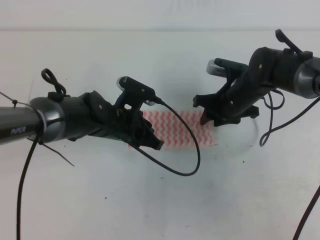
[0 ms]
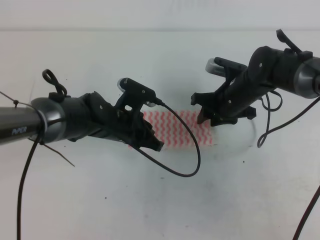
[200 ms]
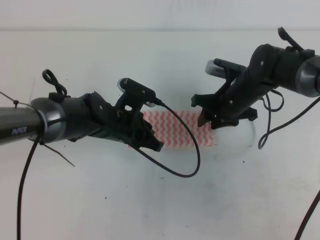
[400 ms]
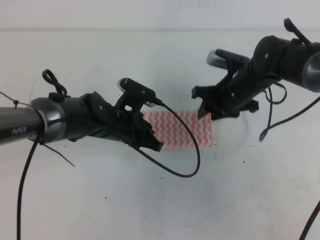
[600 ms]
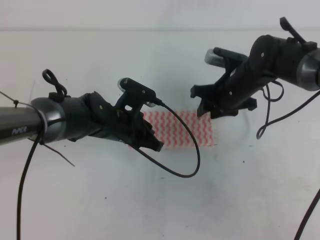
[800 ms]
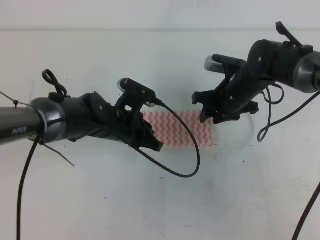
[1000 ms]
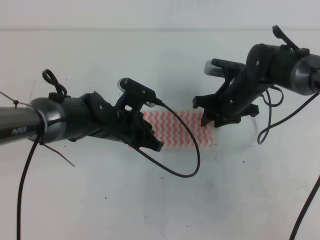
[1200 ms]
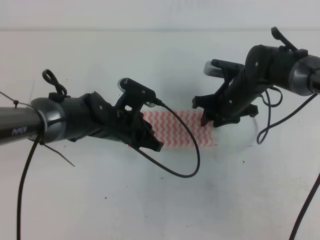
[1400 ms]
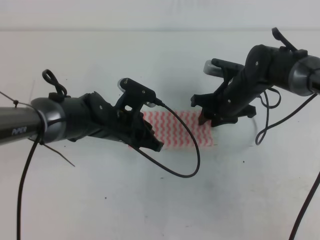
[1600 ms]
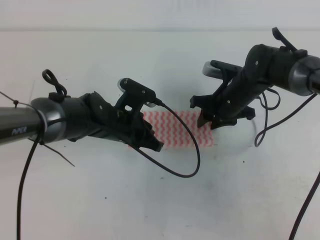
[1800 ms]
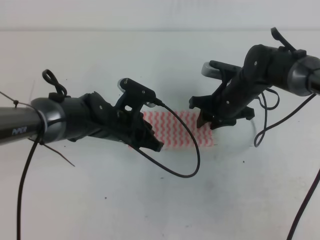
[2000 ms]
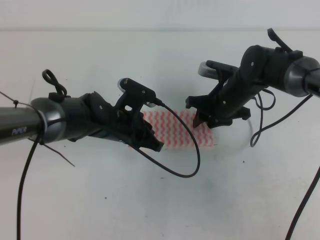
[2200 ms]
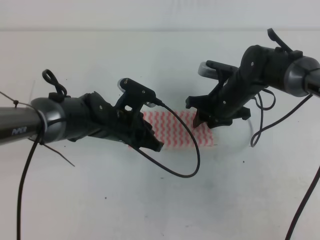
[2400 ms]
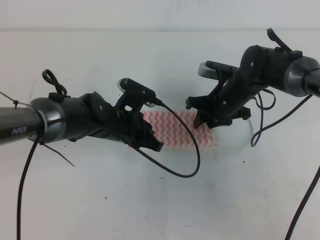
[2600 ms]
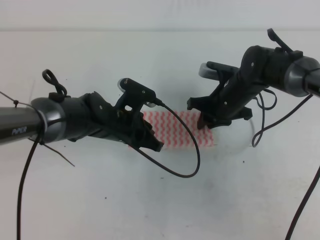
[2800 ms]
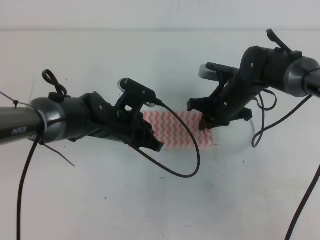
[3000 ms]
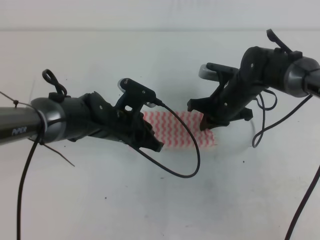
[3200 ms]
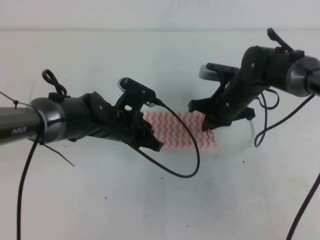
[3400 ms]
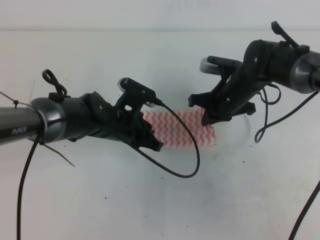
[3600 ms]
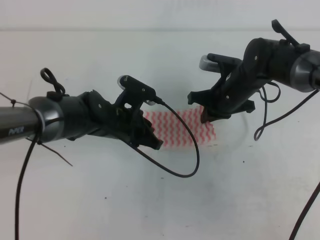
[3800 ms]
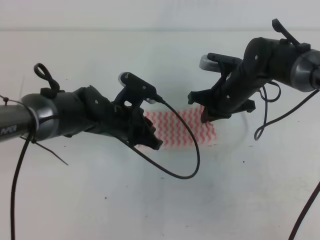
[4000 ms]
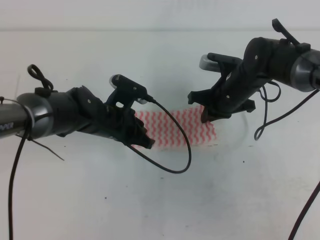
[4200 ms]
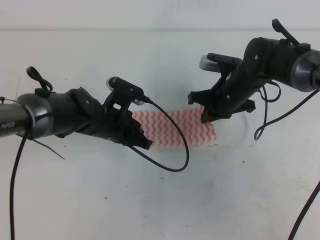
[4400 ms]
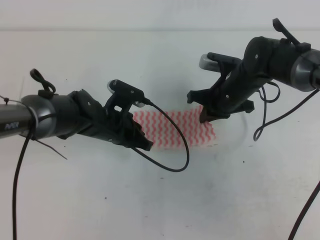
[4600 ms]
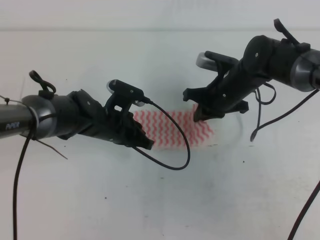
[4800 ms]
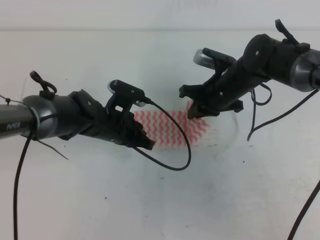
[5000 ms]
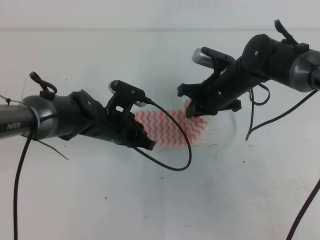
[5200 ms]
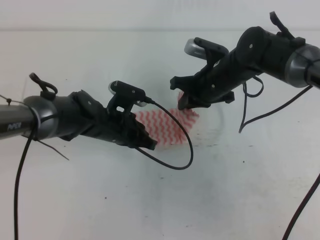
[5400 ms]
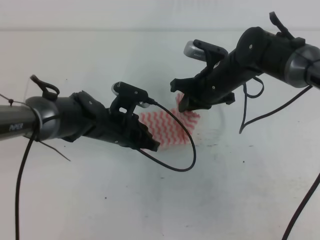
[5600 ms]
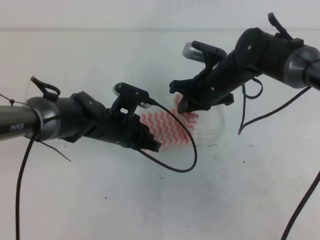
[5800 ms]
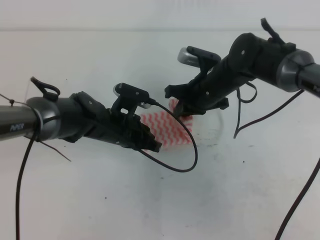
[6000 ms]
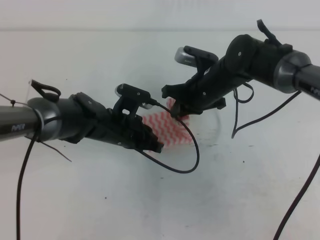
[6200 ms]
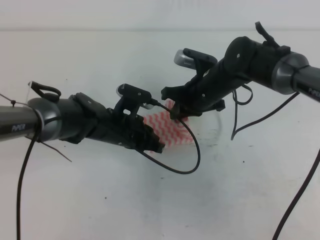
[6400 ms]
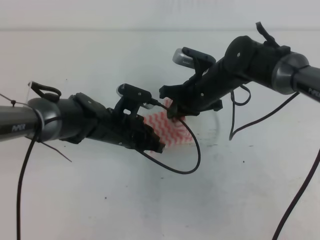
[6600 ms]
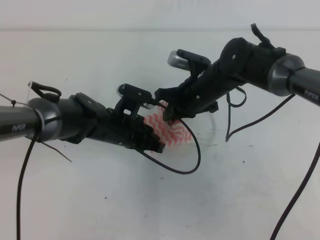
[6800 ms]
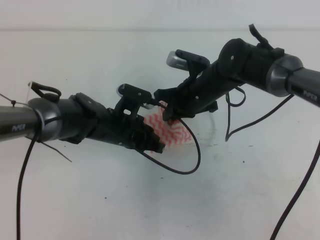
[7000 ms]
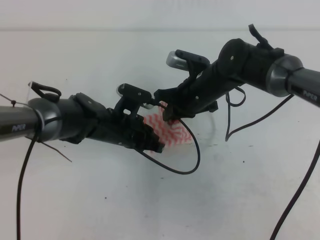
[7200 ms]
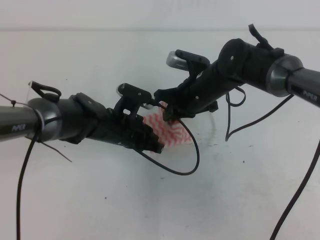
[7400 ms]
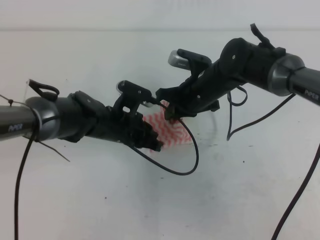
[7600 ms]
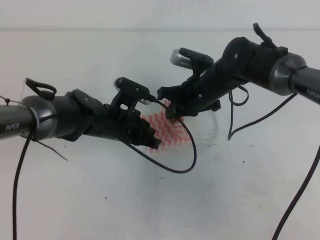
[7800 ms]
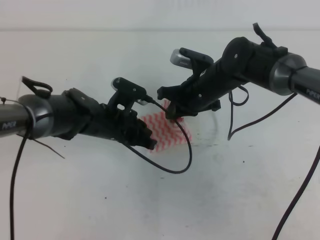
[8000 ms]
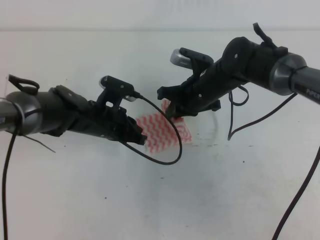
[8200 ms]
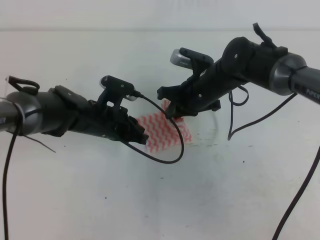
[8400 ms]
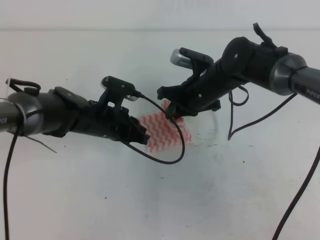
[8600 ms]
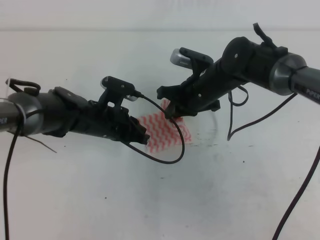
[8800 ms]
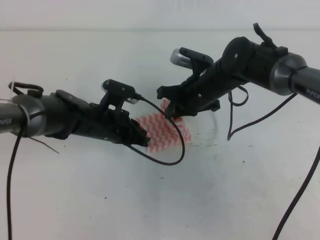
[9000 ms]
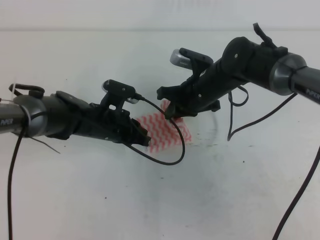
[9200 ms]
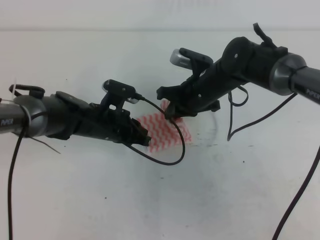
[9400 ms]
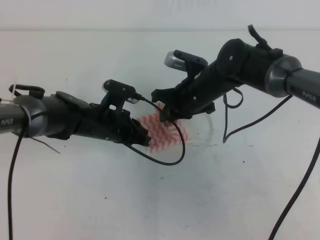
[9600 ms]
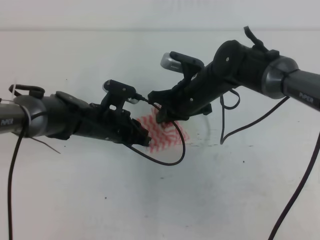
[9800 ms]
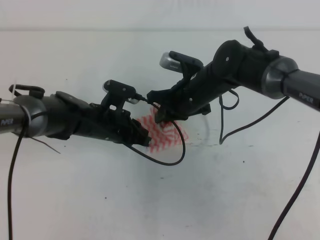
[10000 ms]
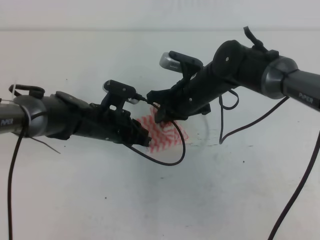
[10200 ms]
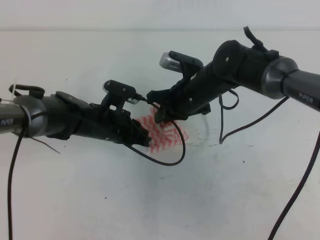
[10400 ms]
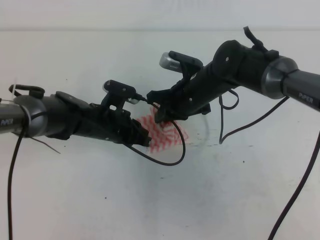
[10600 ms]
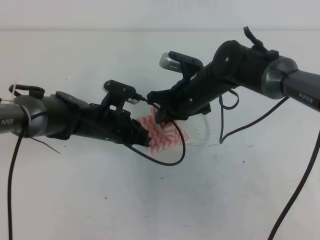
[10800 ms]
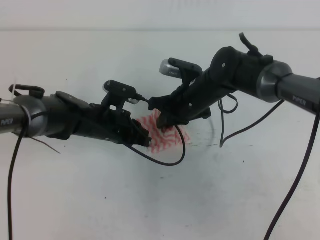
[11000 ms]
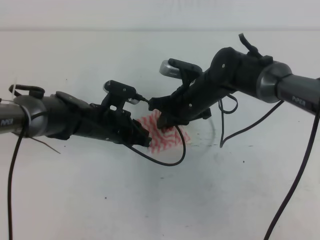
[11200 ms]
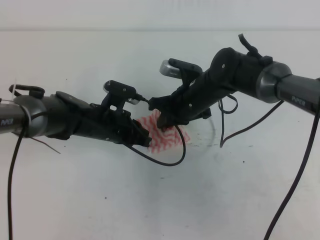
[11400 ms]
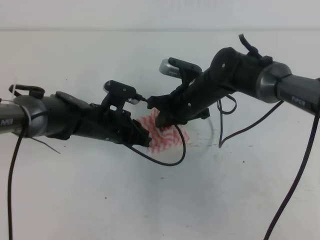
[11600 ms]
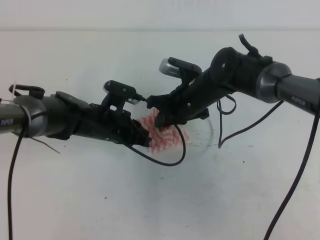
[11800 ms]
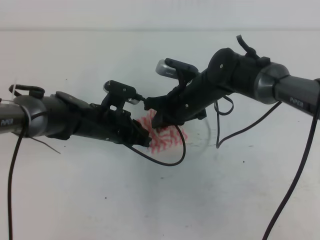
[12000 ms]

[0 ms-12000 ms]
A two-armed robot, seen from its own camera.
0 ms to 1600 ms: The grippers make only small movements.
1600 ms to 3000 ms: The right gripper closes up.
3000 ms to 4400 ms: There are only small adjustments of the grippers.
4400 ms to 9000 ms: The grippers move only a little.
9000 ms to 12000 ms: There are only small adjustments of the grippers.

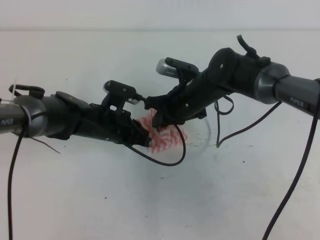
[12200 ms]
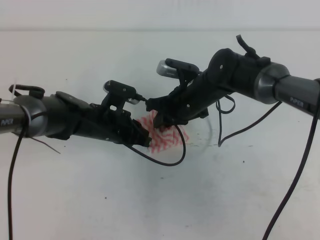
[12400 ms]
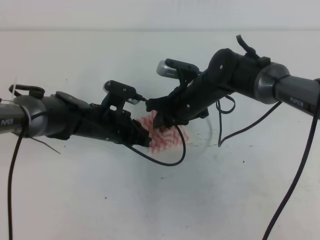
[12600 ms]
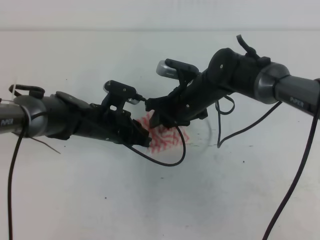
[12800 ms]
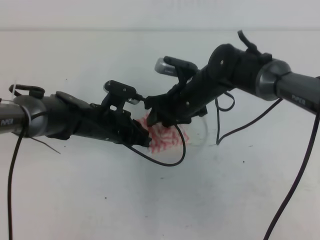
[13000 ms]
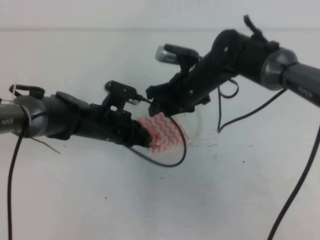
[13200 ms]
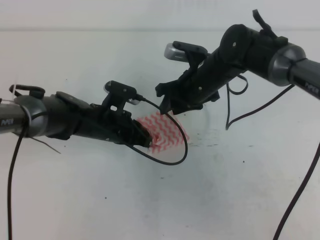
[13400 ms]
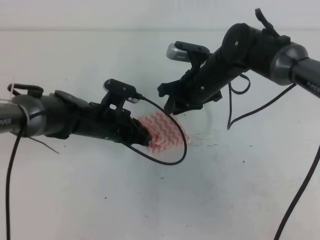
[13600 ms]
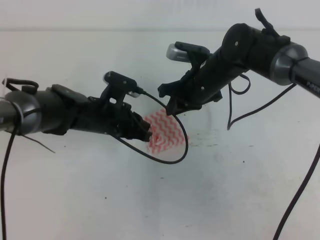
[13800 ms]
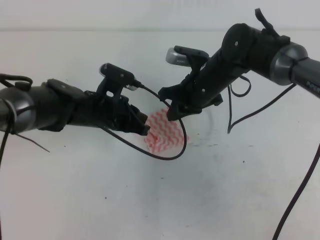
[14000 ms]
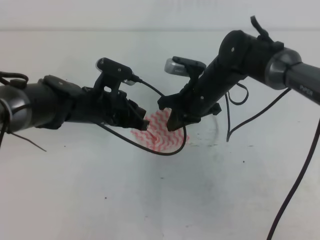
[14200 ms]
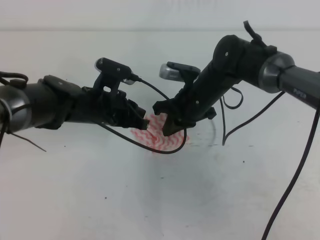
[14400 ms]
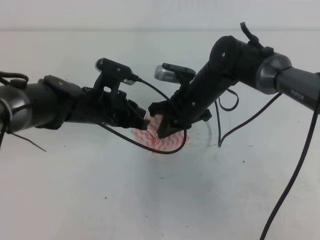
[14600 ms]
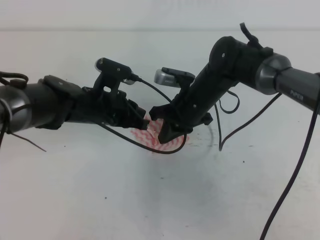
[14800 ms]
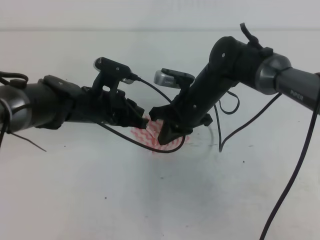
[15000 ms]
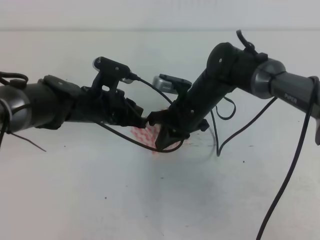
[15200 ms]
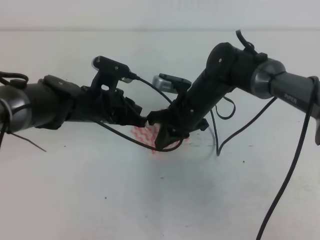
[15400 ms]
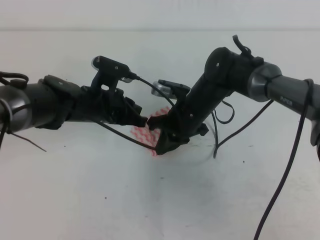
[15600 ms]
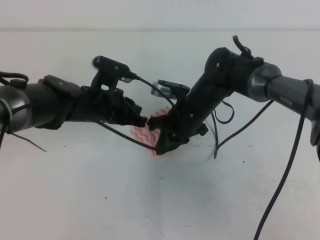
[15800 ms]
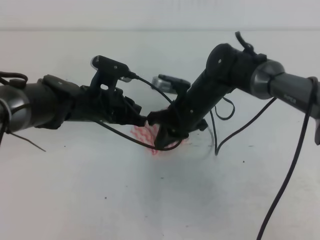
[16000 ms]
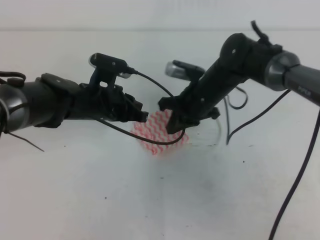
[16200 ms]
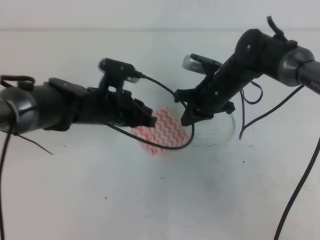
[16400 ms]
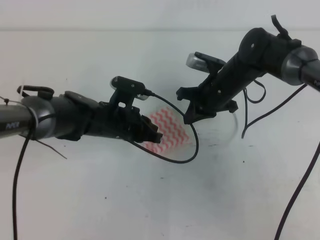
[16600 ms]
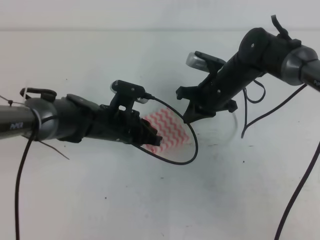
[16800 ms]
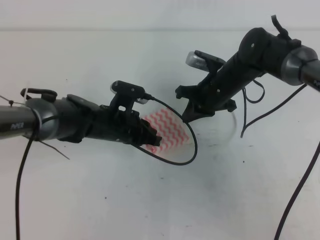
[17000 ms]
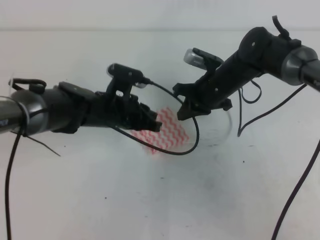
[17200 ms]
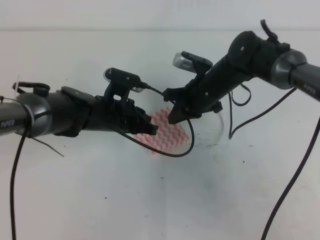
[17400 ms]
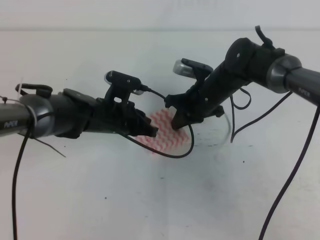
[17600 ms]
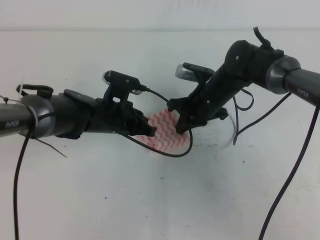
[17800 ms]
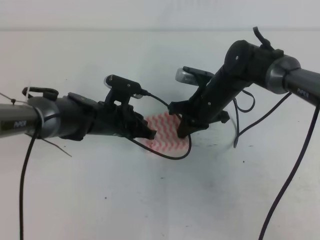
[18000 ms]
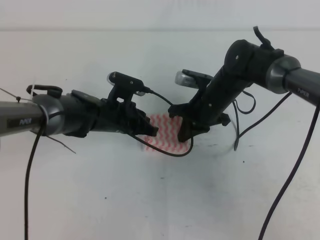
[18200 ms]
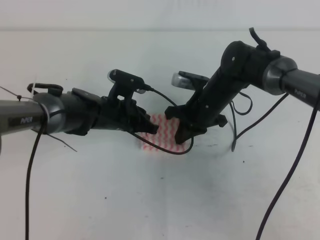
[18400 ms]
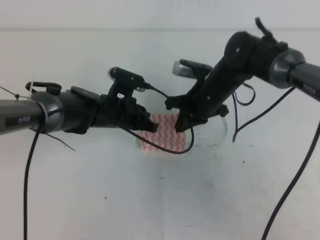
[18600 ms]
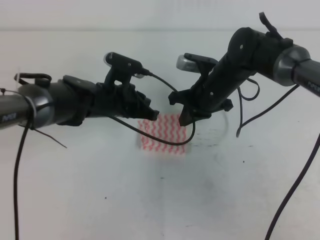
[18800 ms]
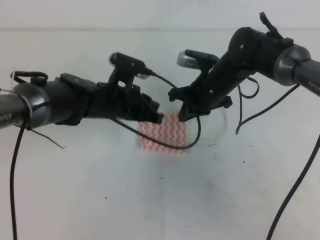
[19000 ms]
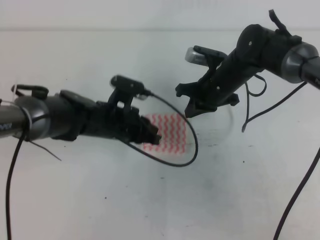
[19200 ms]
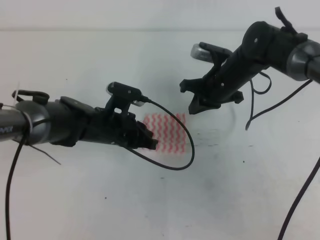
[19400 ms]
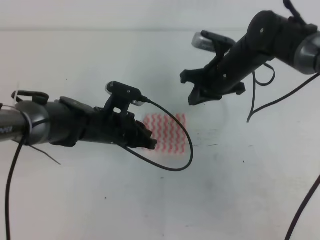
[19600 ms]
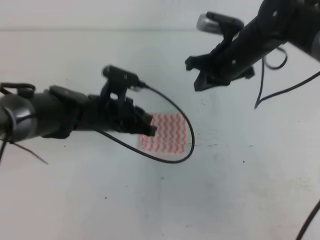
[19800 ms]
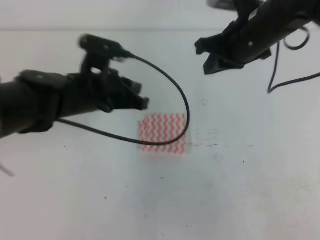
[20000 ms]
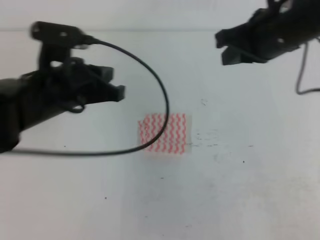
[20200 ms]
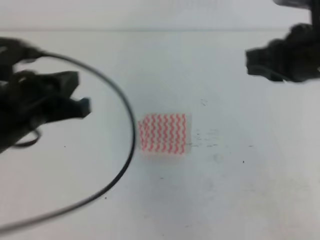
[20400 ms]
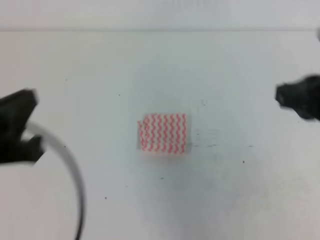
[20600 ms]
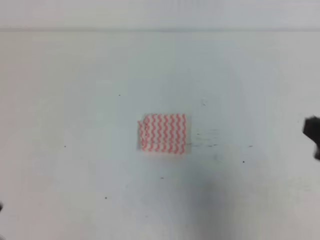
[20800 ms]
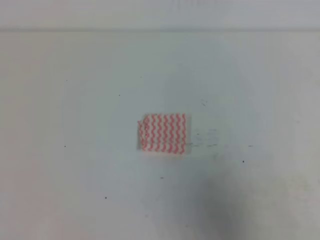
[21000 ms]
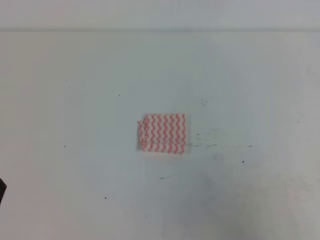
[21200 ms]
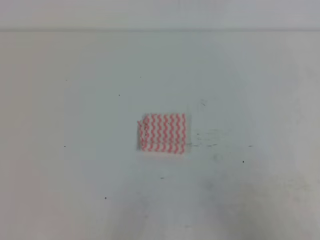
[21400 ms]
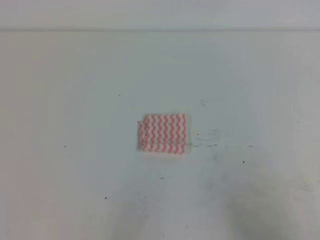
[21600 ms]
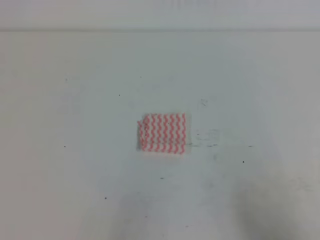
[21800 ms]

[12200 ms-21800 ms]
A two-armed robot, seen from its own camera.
12200 ms to 13800 ms: The right gripper opens and closes again.
15400 ms to 17000 ms: The right gripper is displaced to the right by some 5 cm.
17000 ms to 18600 ms: The grippers make only small movements.
18600 ms to 20200 ms: The right gripper heads upward and to the right, covering some 15 cm, while the left gripper moves upward and backward, roughly 15 cm.
20200 ms to 21800 ms: The left gripper shifts some 25 cm backward and to the left. The right gripper goes some 35 cm backward and to the right.
